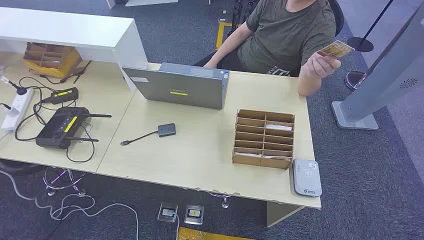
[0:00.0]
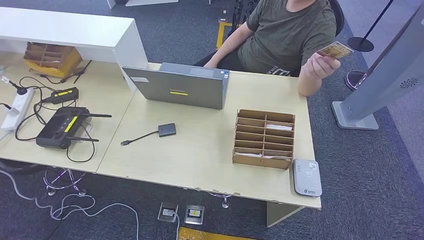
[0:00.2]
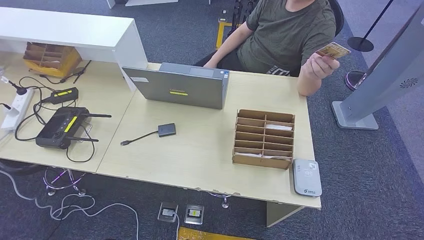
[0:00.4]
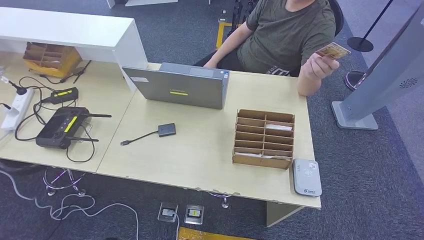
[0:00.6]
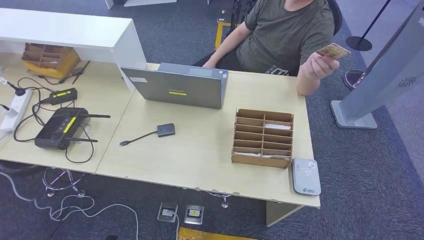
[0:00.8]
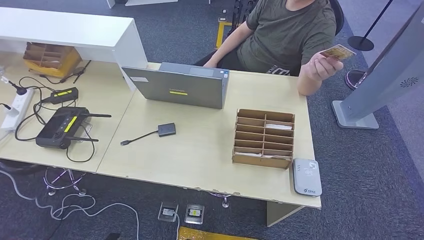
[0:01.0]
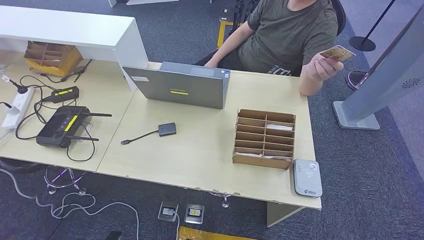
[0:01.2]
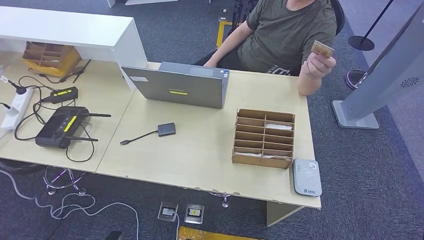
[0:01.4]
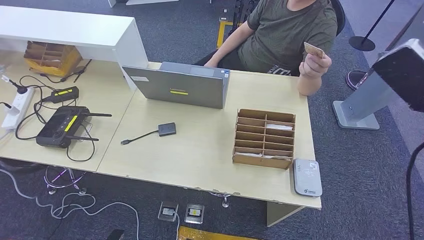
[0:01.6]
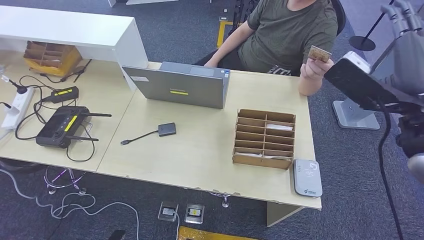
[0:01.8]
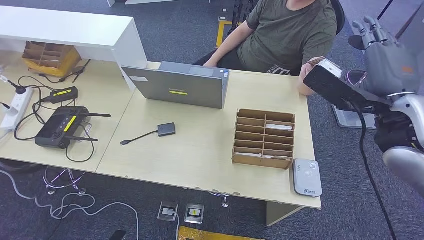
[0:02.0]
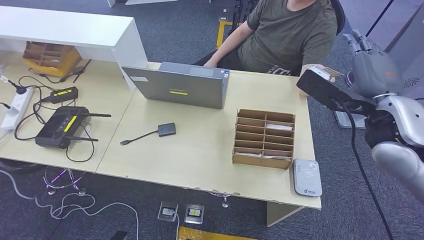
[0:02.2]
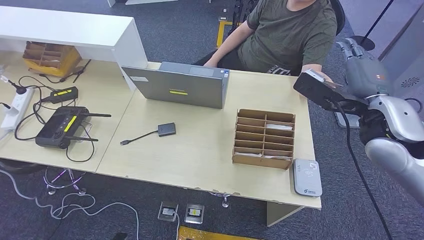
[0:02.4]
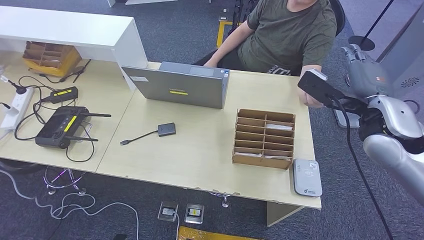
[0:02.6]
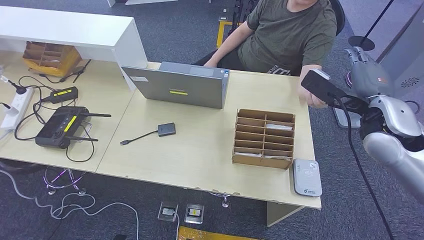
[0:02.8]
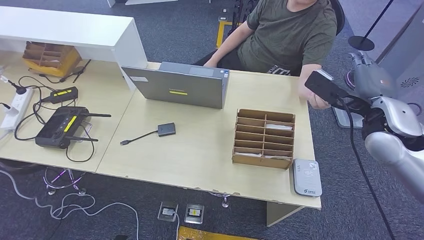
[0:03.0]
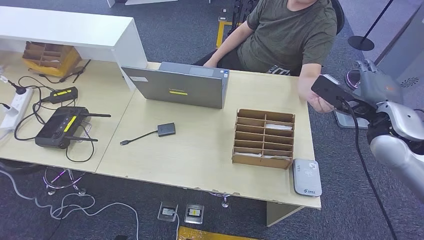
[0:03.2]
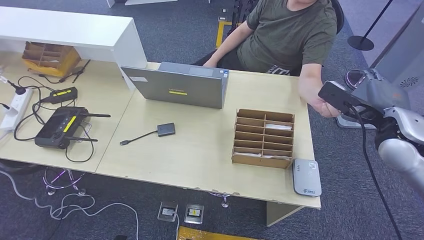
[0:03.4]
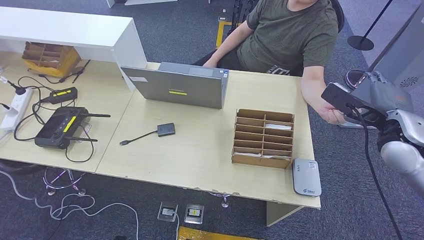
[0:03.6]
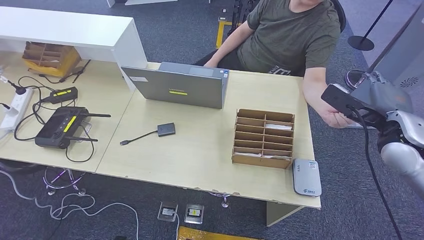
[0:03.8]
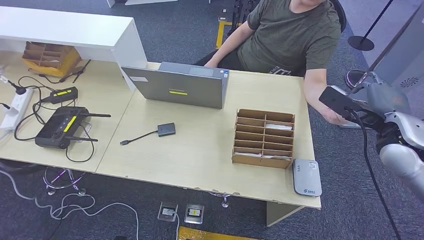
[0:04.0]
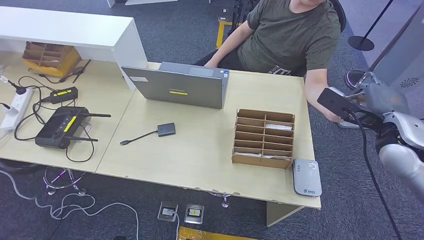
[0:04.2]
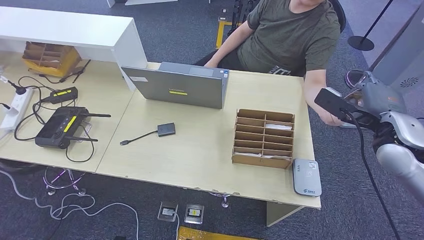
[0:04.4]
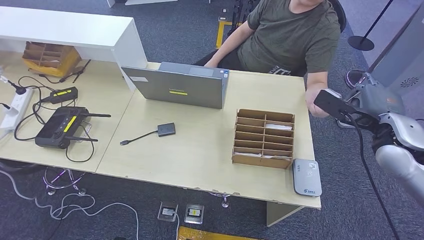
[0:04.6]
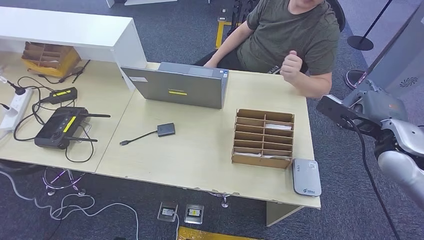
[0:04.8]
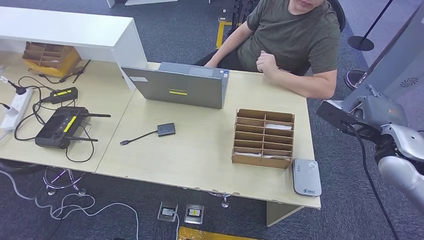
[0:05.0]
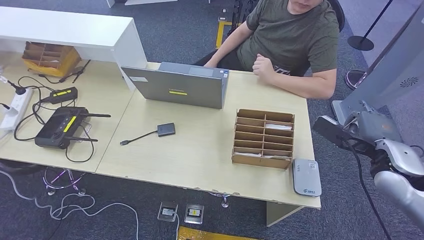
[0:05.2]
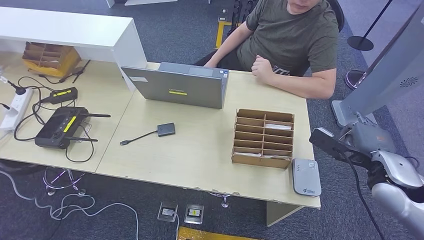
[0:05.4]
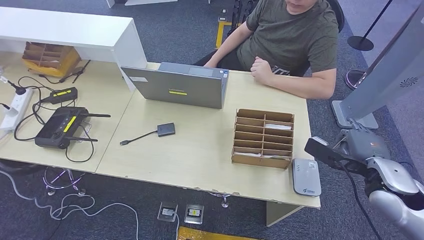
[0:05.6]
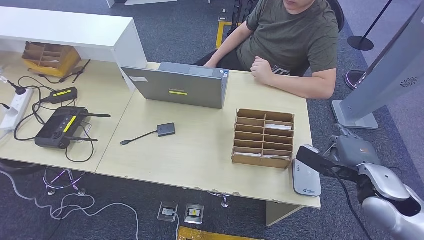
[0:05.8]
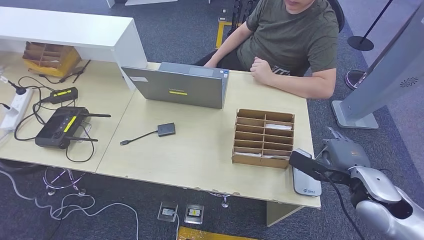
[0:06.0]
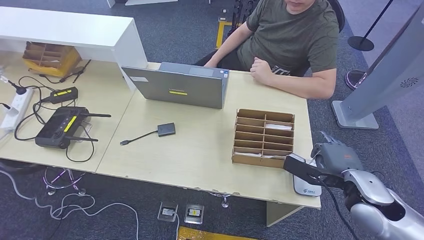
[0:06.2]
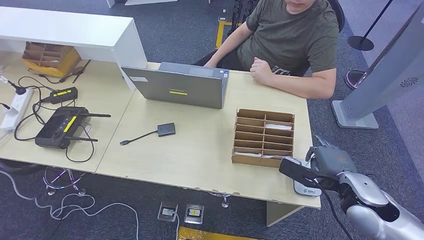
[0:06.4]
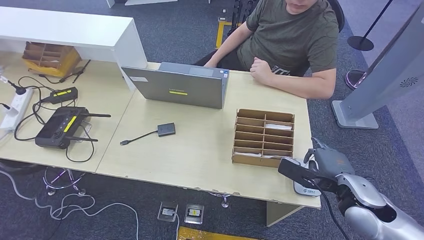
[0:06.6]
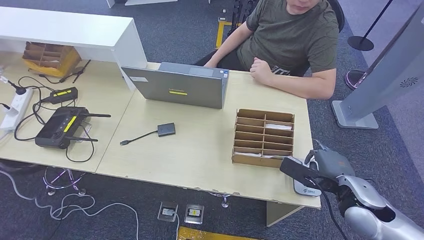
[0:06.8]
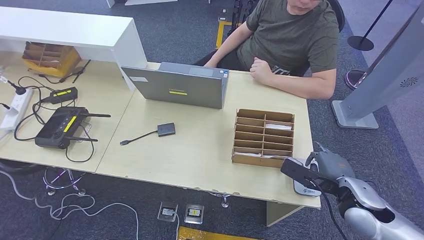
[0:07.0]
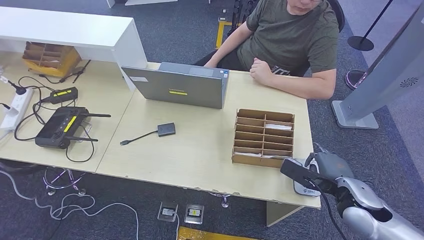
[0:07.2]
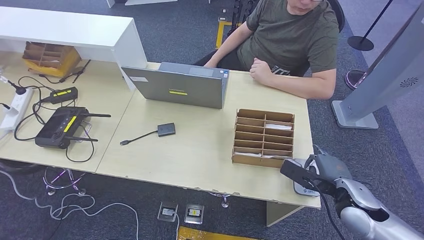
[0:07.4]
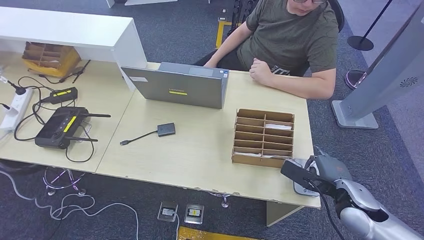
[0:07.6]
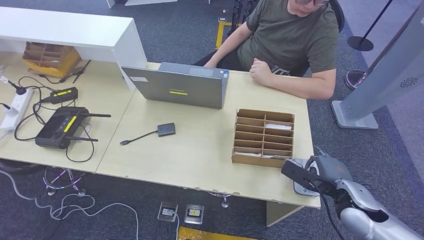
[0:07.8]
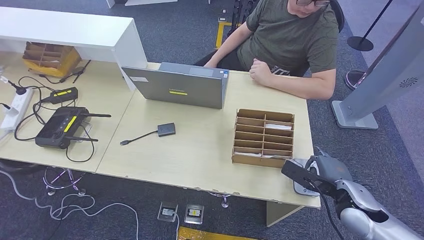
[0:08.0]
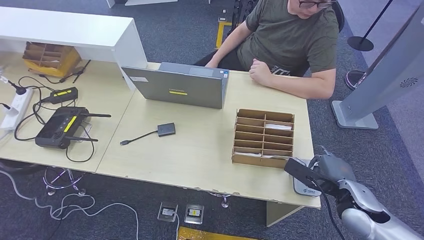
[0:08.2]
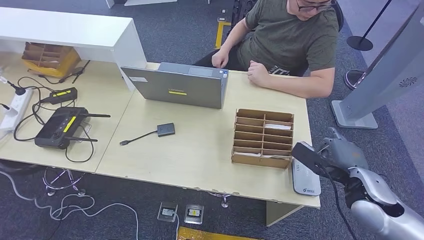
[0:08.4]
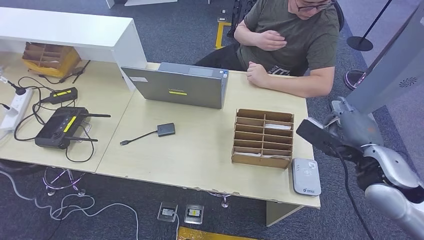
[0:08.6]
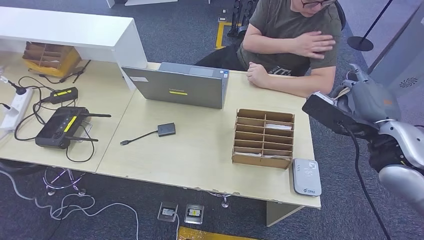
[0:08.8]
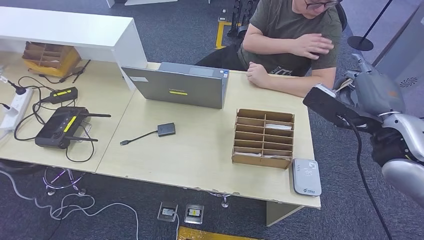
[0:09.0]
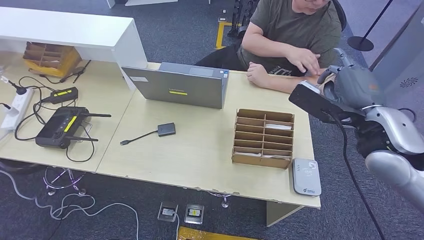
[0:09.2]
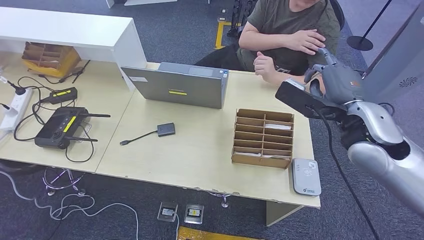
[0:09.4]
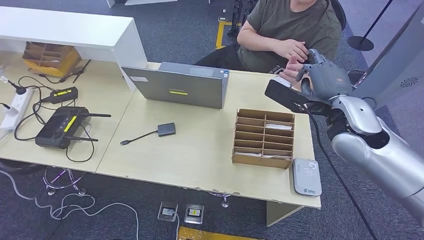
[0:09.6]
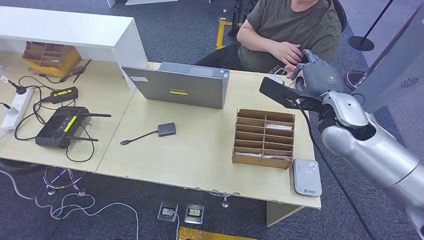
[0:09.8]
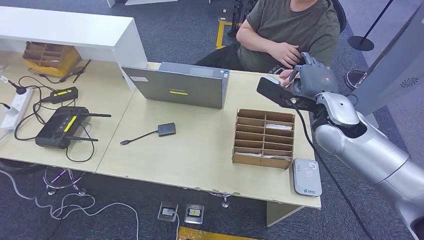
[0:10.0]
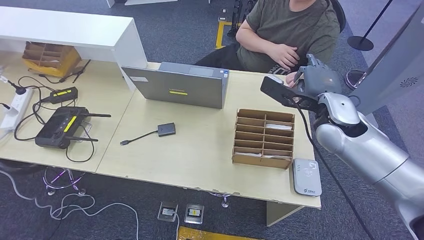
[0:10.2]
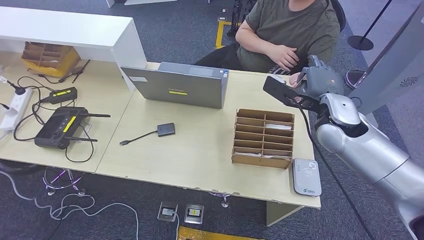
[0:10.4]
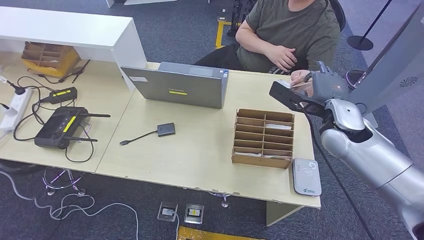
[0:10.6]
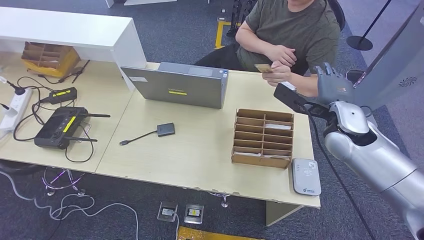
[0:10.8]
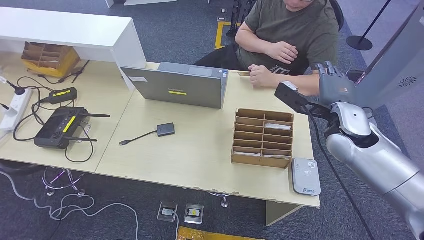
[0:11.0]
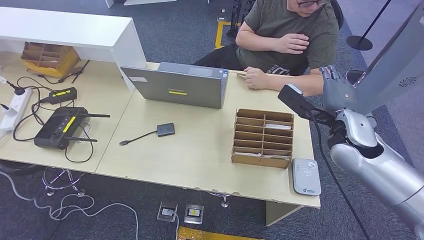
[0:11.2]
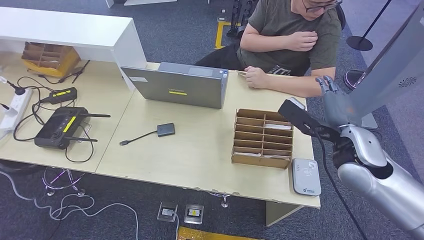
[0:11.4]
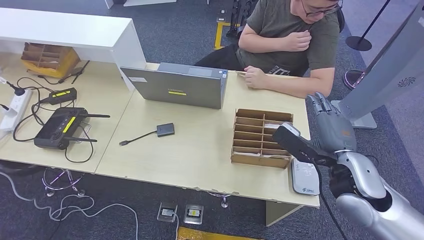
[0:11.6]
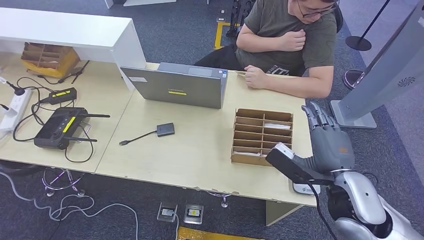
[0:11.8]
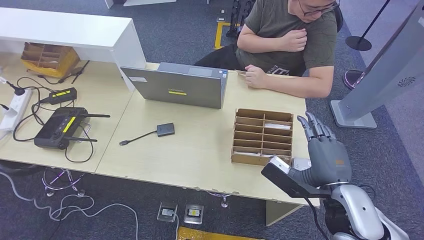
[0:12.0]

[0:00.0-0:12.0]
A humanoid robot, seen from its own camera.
Step, 0:00.0 to 0:04.2: Take the ID card from the person's hand.
Step, 0:04.4 to 0:07.6: Place the ID card on the card reader.
Step, 0:07.8 to 0:10.4: Hand the ID card to the person.
0:01.6 to 0:03.0: The right hand goes approximately 15 cm downward and forward.
0:03.0 to 0:04.4: The hands move only a little.
0:04.4 to 0:06.0: The right hand shifts roughly 10 cm downward and backward.
0:06.0 to 0:07.6: The right hand shifts about 5 cm downward.
0:07.6 to 0:09.0: The right hand heads upward, covering roughly 20 cm.
0:09.0 to 0:10.4: The right hand moves forward, to the left and downward, some 10 cm.
0:10.4 to 0:12.0: The right hand travels backward and downward by roughly 20 cm.

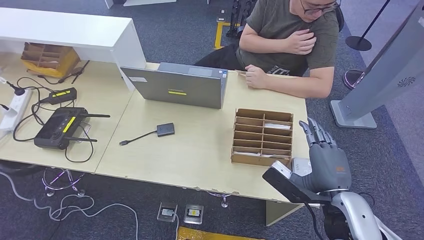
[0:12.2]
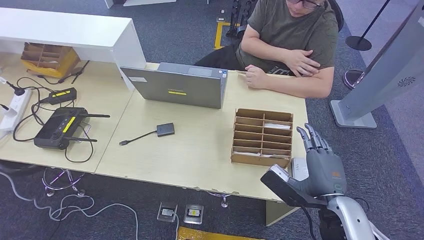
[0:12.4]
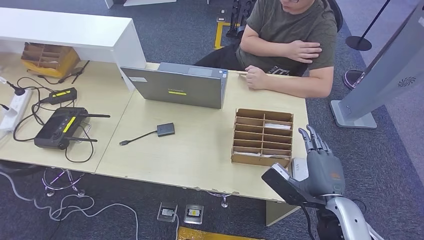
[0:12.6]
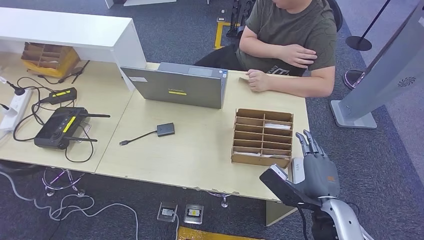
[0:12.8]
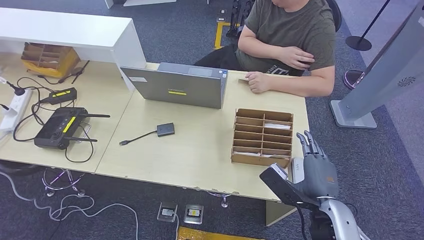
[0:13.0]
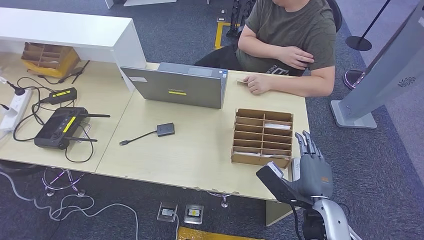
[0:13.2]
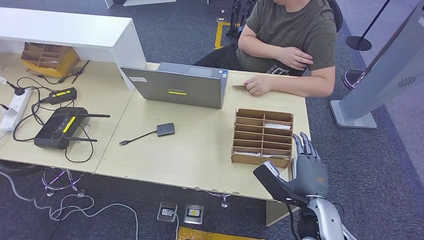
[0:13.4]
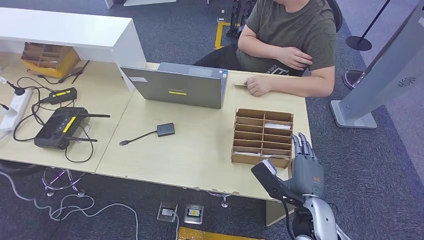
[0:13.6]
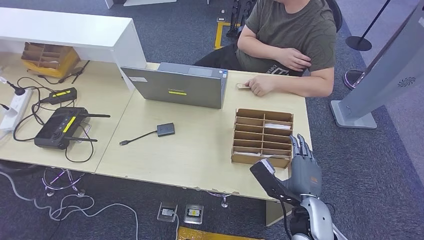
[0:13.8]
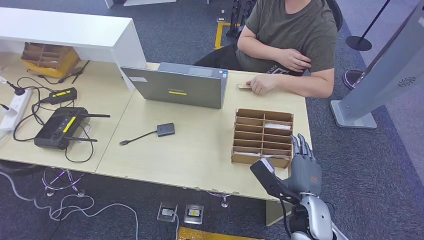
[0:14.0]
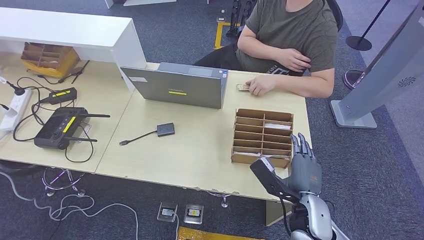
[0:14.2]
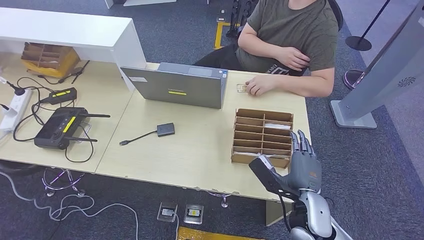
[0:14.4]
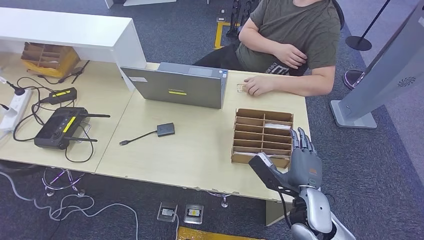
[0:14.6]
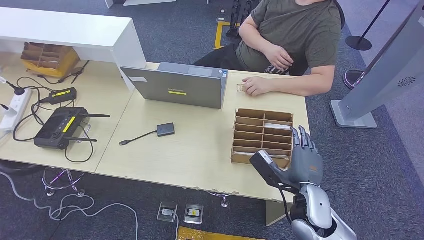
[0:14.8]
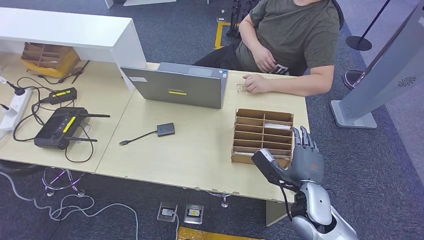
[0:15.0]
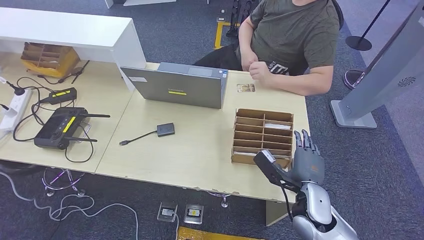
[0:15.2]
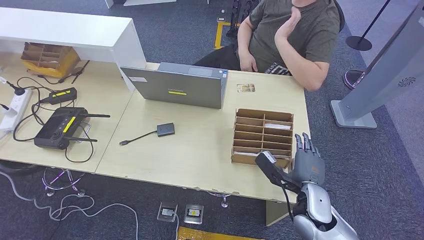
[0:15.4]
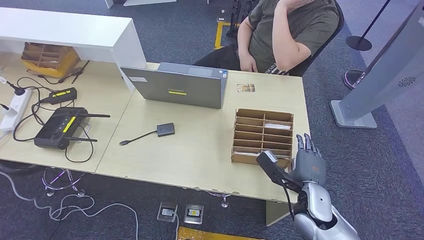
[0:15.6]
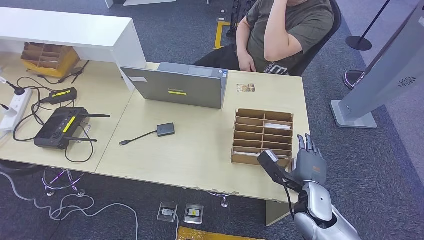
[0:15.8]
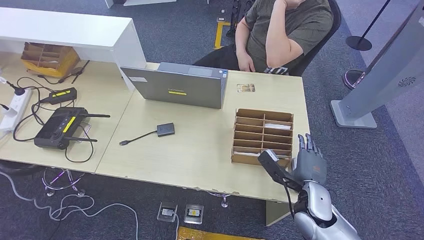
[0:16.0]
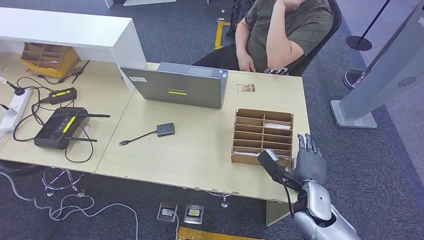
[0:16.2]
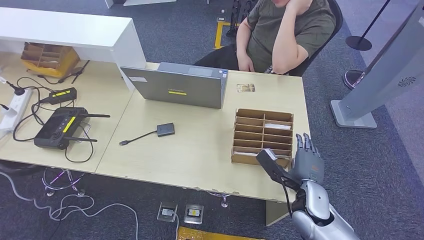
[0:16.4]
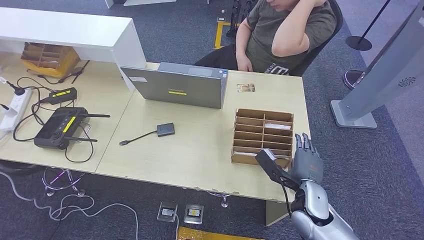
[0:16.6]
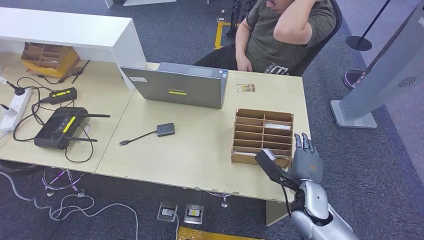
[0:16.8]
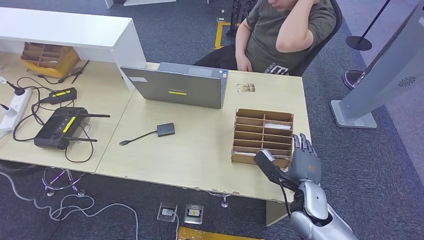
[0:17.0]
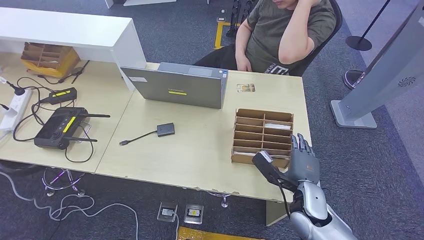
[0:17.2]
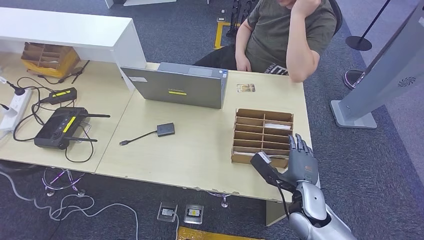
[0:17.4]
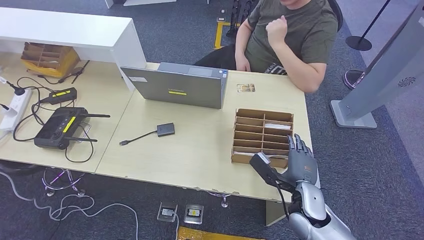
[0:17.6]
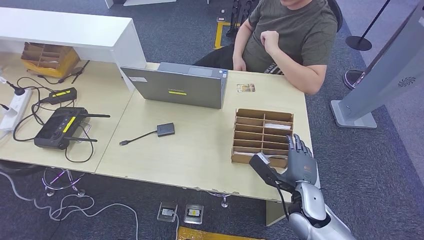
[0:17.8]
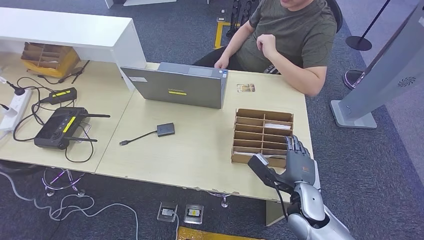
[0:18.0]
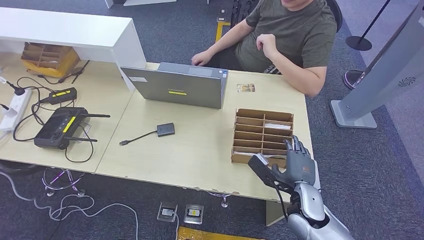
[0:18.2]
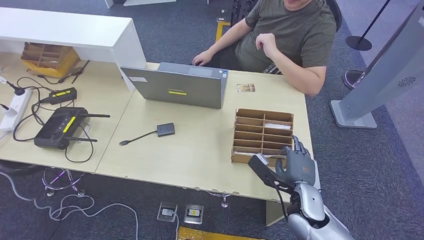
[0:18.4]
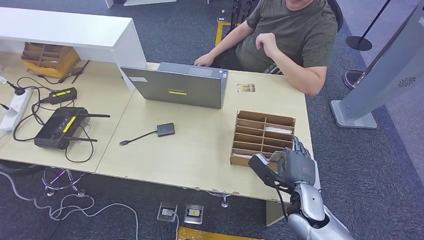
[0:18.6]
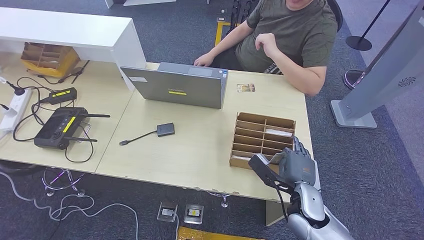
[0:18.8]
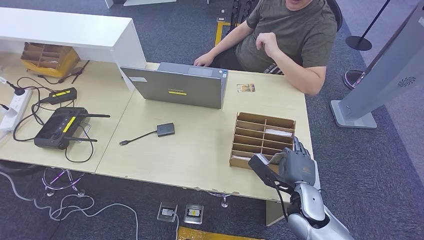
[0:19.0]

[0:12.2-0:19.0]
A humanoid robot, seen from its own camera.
0:12.2 to 0:13.6: The right hand moves downward, roughly 10 cm.
0:13.6 to 0:17.6: The hands move only a little.
0:17.6 to 0:19.0: Neither hand changes place.
